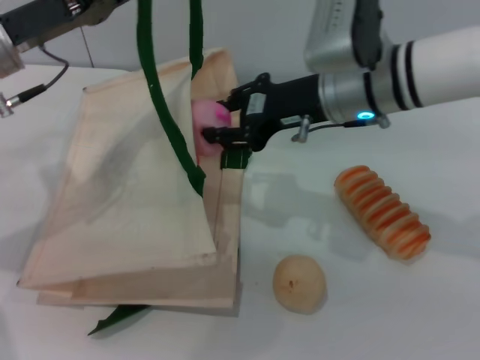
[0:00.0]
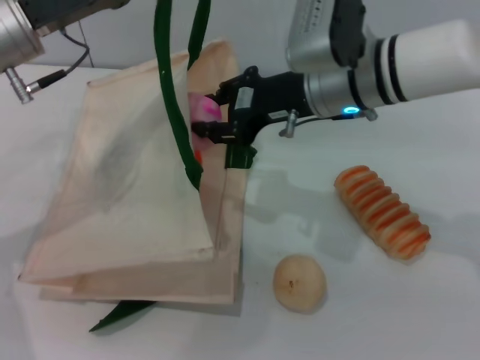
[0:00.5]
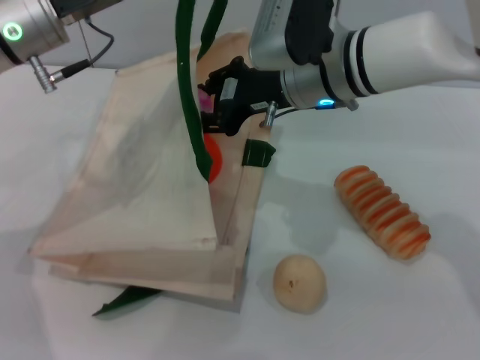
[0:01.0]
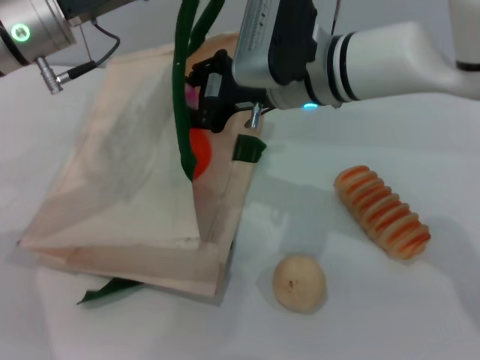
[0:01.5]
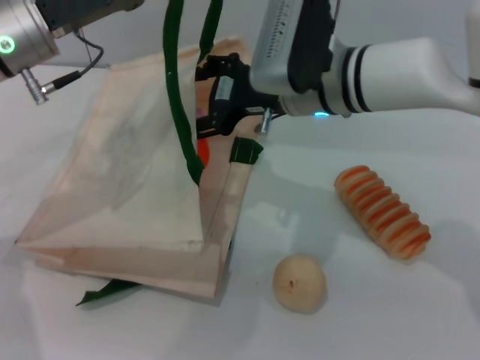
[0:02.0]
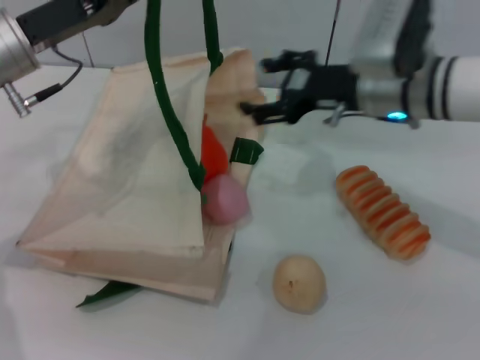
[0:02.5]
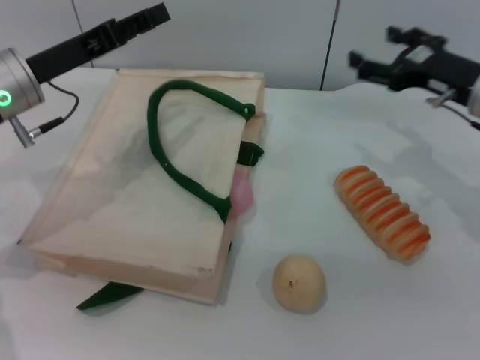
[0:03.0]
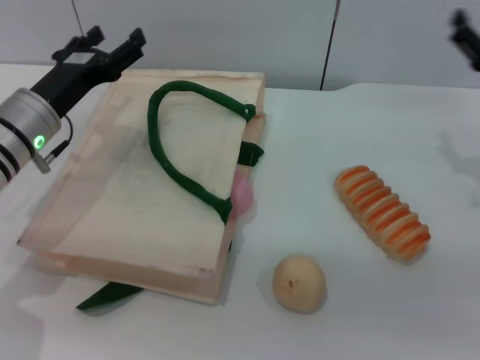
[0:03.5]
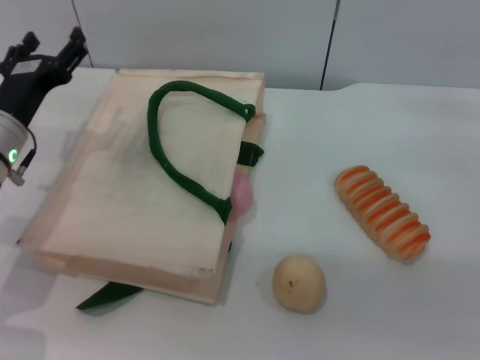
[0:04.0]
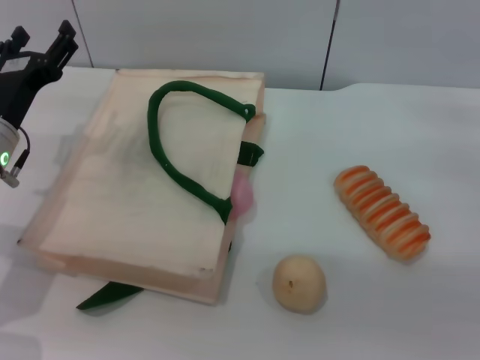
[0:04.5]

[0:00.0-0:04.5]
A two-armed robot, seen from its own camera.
Task of the whole recording: pick up the orange and peach from the table and place it in the white handbag.
Step, 0:00.0 to 0:02.5: Place the peach into the woven bag with the right gripper.
Step, 0:03.0 to 0:03.5: Lower the woven bag with the left gripper to close it.
0:00.0 to 0:02.0: The right gripper opens.
0:02.0 to 0:04.5: The right gripper shifts approximately 25 cm to the right. Meanwhile the left gripper shifts approximately 10 cm downward, and opens its fingers.
